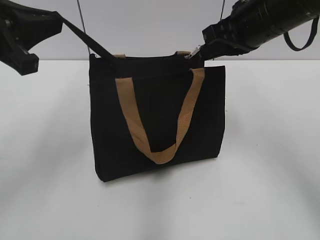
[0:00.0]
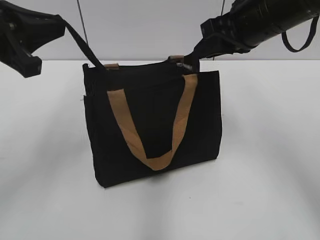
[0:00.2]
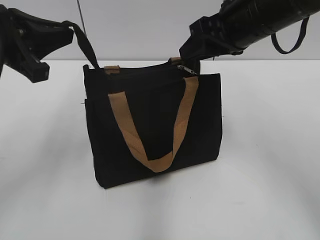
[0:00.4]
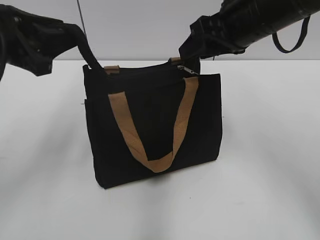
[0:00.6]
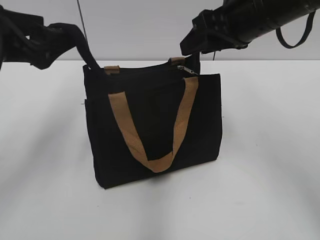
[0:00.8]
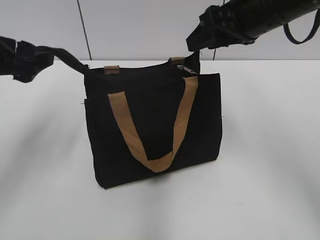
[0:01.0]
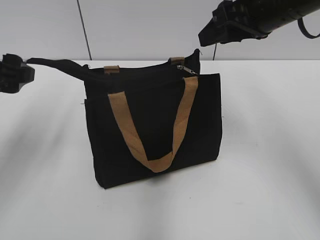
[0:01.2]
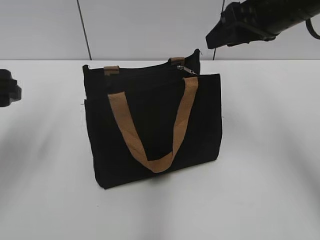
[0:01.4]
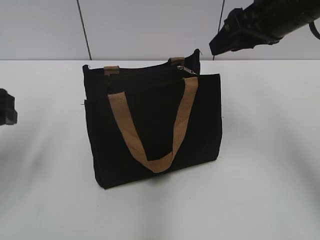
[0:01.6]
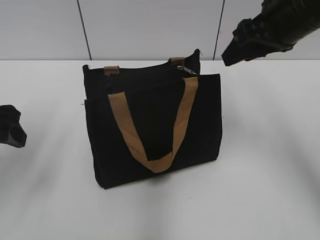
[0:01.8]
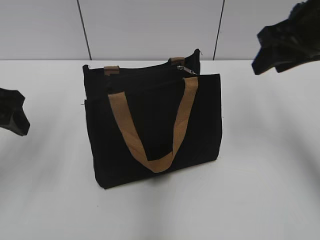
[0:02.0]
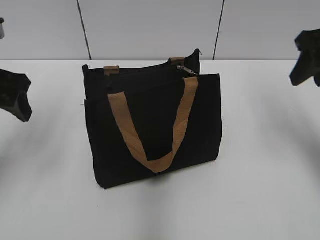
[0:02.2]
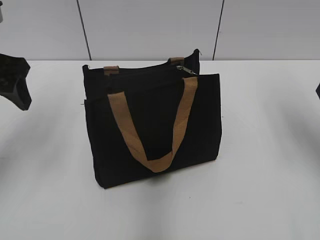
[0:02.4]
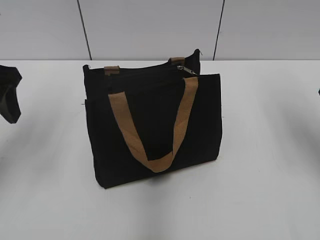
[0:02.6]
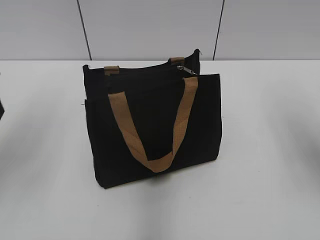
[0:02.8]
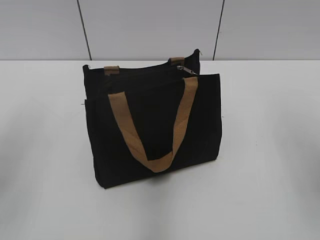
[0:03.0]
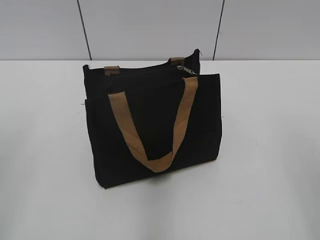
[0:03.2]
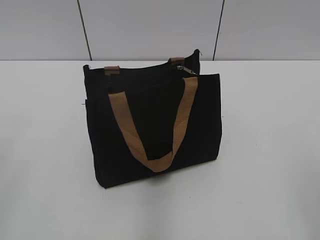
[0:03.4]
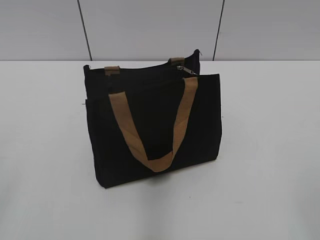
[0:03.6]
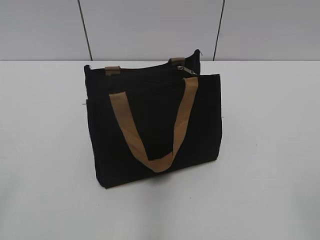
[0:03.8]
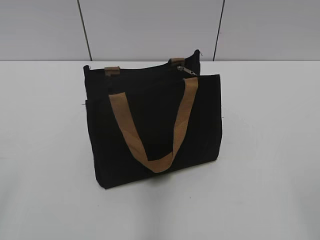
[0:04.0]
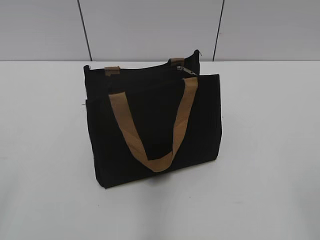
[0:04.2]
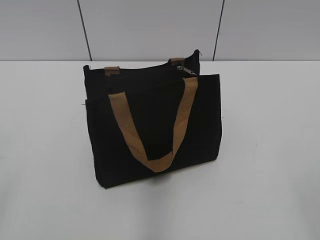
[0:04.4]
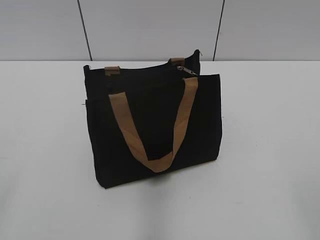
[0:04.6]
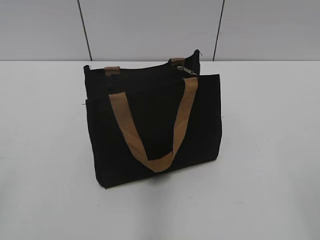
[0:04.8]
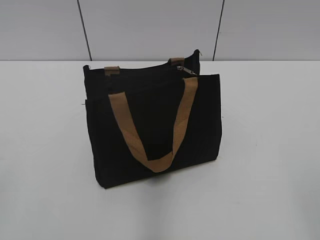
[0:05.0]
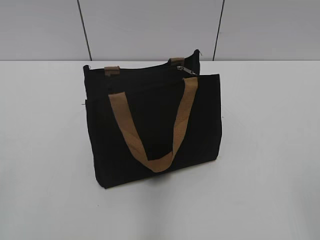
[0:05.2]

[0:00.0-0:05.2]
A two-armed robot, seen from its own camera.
Step, 0:00.4 to 0:01.2: Grab the zipper with your left hand.
0:00.0 to 0:01.8: The left gripper heads downward, covering approximately 5 cm, and opens its fingers, while the right gripper opens its fingers.
0:01.8 to 0:03.4: The left gripper shifts some 20 cm backward and upward, while the right gripper moves backward, roughly 30 cm.

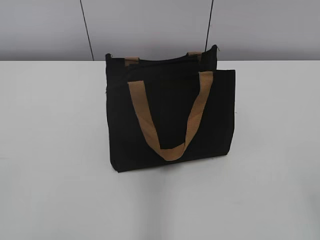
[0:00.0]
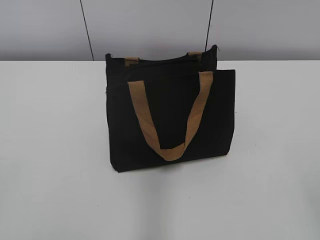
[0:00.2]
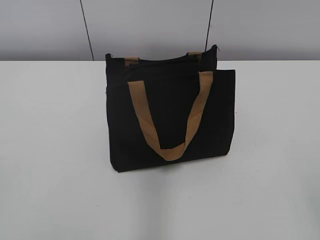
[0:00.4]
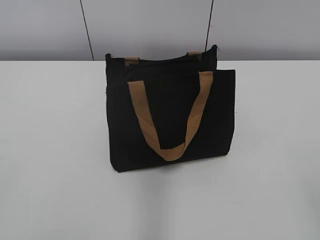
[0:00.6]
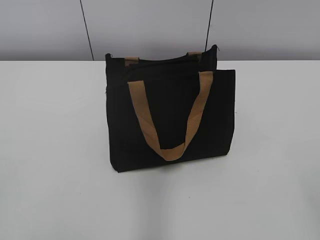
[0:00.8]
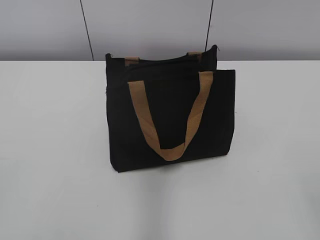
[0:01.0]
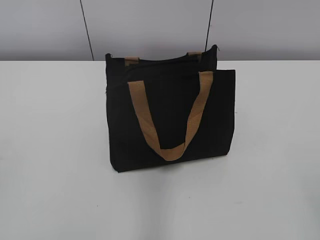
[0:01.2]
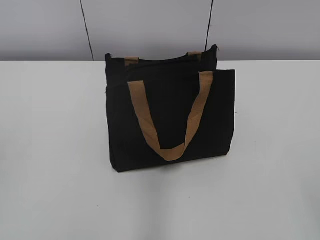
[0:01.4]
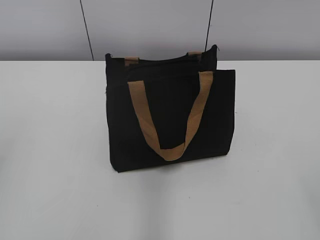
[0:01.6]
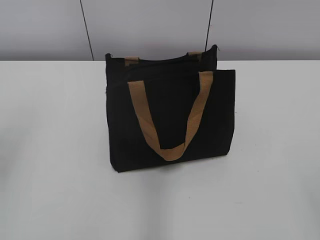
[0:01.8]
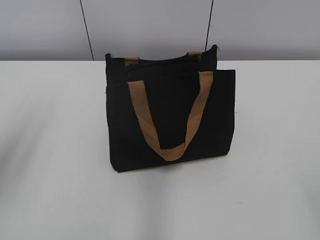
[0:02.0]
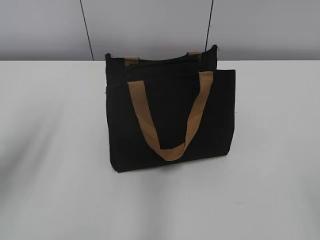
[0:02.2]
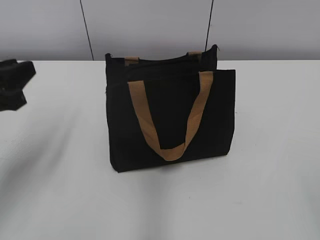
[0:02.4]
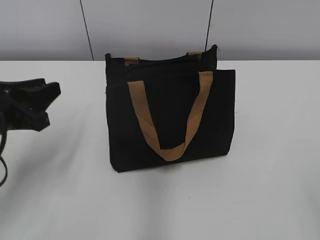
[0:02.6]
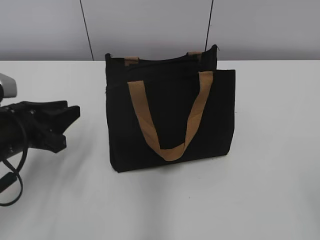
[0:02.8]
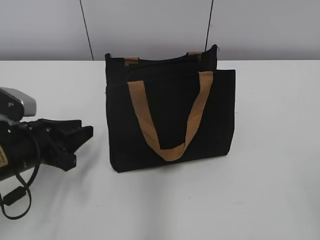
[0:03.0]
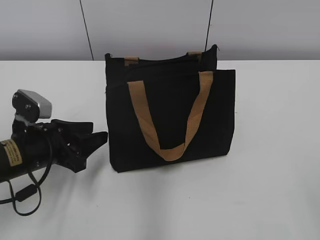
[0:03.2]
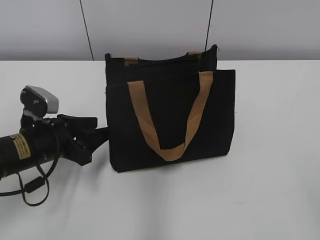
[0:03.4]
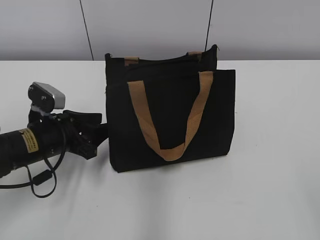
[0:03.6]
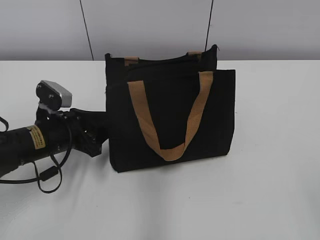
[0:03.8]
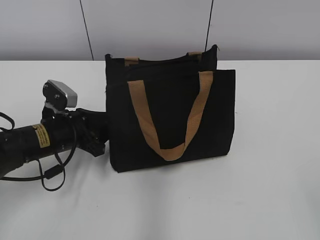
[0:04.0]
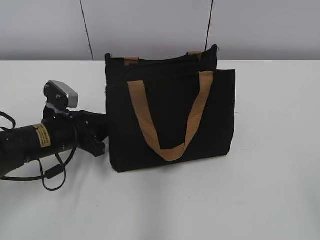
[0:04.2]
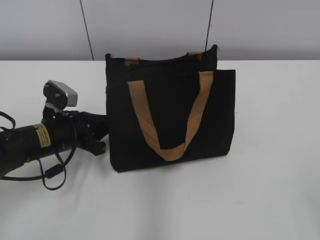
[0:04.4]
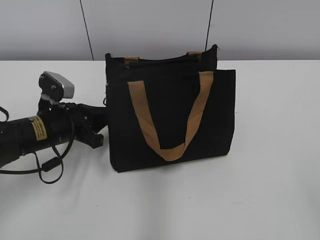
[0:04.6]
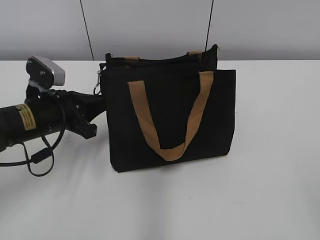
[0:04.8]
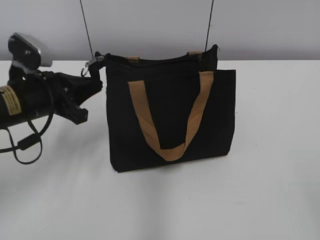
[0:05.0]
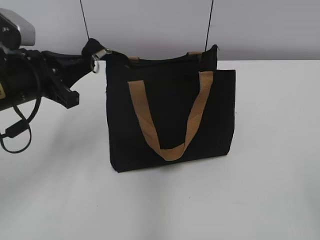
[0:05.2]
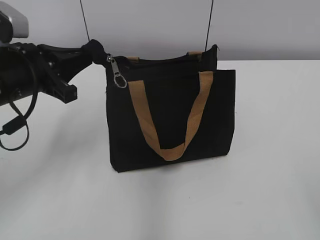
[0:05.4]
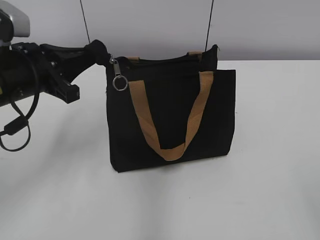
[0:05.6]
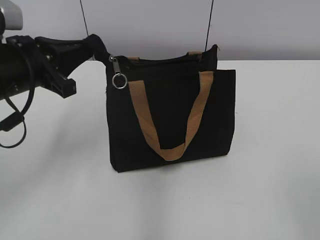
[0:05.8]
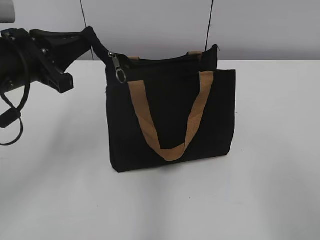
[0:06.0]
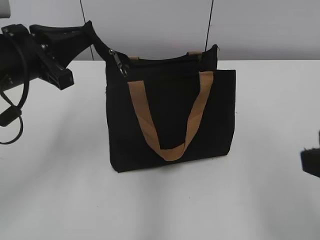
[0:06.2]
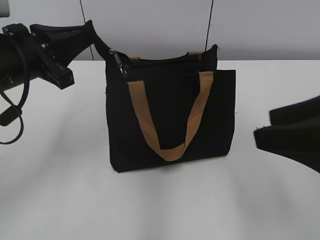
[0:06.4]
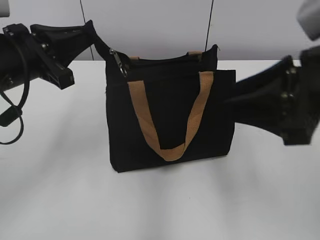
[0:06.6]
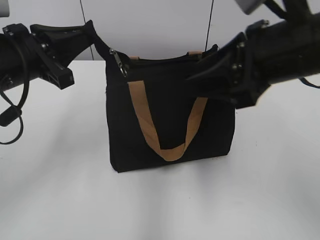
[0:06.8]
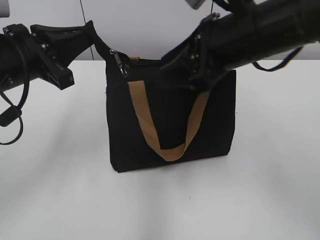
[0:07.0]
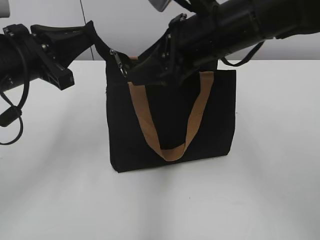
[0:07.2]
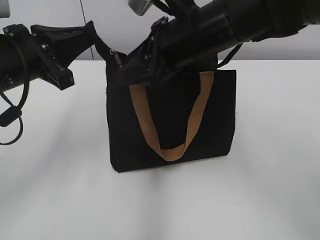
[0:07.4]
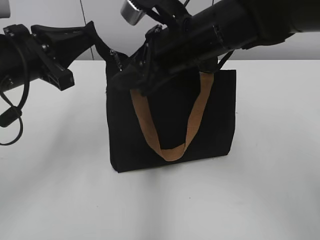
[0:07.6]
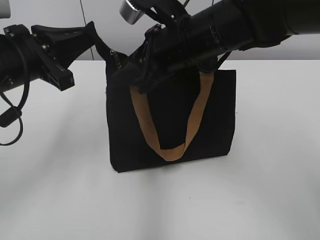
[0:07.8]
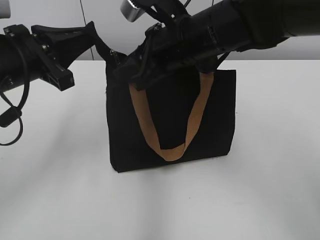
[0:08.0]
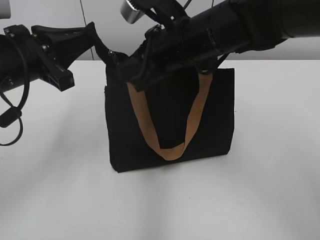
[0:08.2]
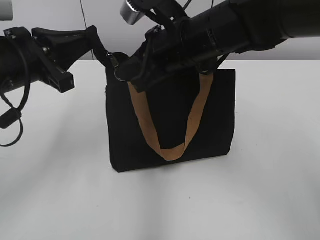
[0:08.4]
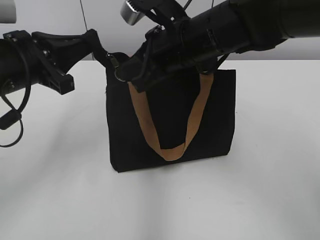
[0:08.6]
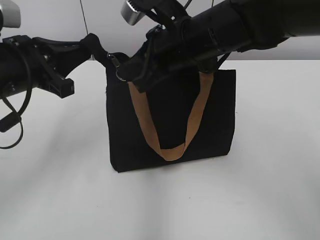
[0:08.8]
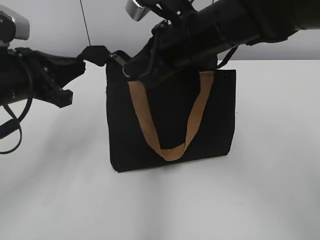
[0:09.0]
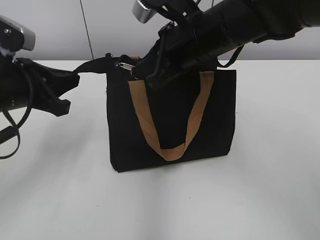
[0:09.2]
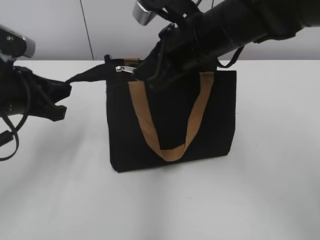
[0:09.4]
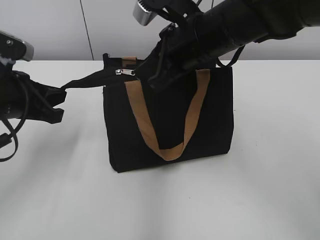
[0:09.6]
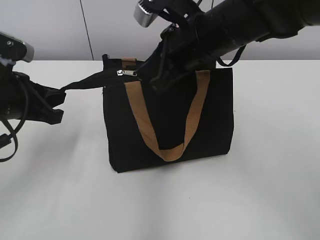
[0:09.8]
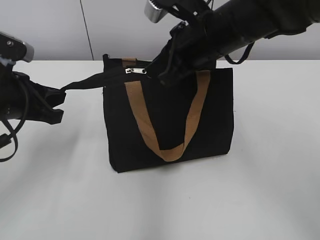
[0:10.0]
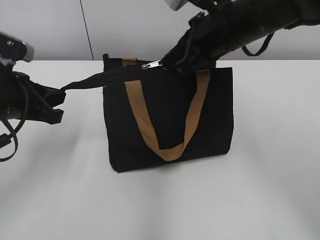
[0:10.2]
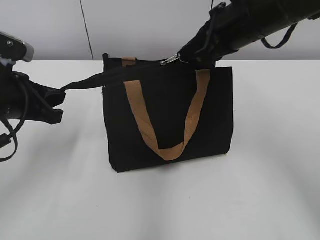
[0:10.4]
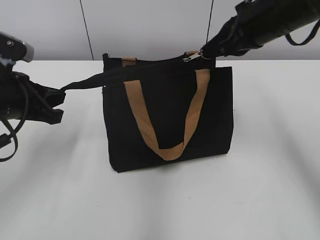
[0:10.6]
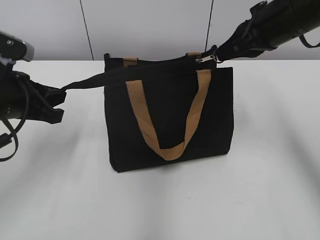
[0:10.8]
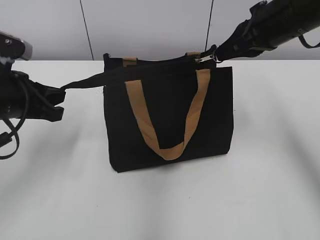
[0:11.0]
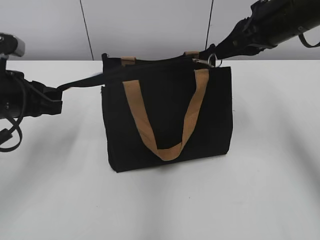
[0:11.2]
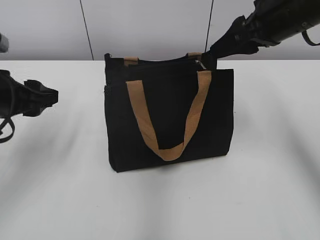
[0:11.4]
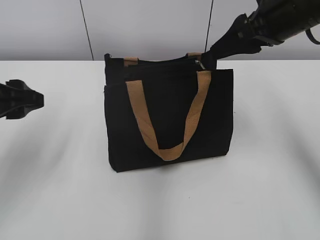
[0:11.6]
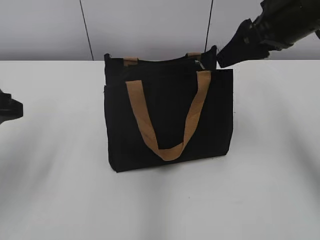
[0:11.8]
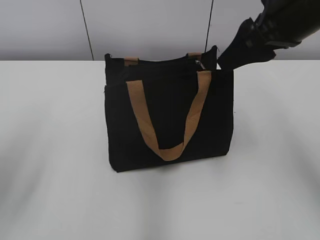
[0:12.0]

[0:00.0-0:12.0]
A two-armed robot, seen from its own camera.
Step, 0:00.0 to 0:11.2: Zip up the bag with your right hand.
0:01.6 to 0:03.0: The left gripper goes roughly 30 cm downward, forward and to the right.
0:03.0 to 0:04.4: The left gripper goes about 5 cm forward, and closes.
0:04.4 to 0:06.0: The right gripper heads forward, covering roughly 5 cm, while the left gripper heads upward, covering approximately 15 cm.
0:06.0 to 0:07.6: The right gripper is displaced forward and to the left by roughly 35 cm.
0:07.6 to 0:09.0: The right gripper closes its fingers.
0:09.0 to 0:10.4: The right gripper heads to the right, covering approximately 5 cm.
0:10.4 to 0:12.0: The right gripper changes place by some 5 cm, and opens, while the left gripper travels backward and upward by approximately 10 cm, and opens up.

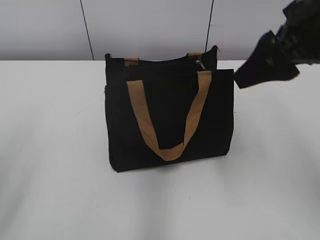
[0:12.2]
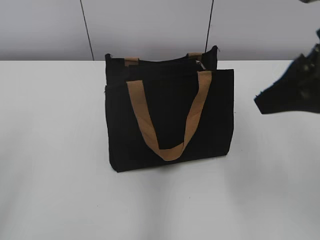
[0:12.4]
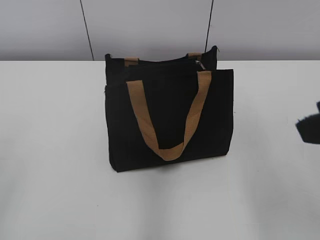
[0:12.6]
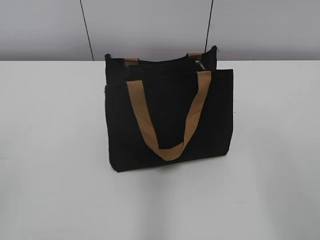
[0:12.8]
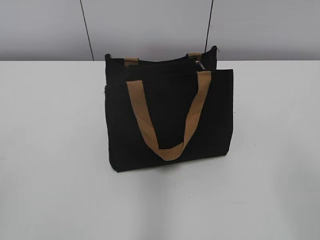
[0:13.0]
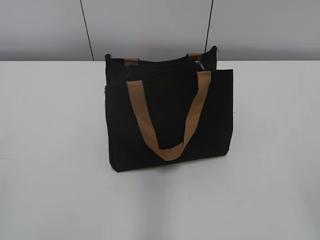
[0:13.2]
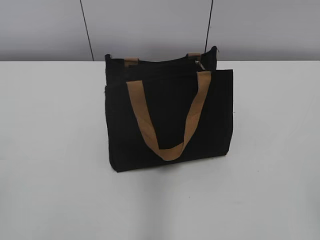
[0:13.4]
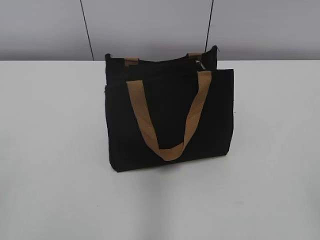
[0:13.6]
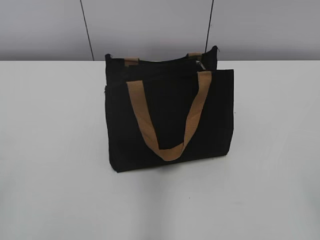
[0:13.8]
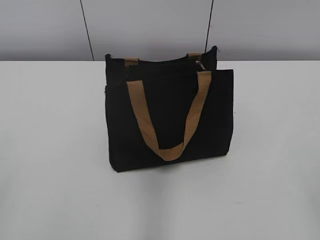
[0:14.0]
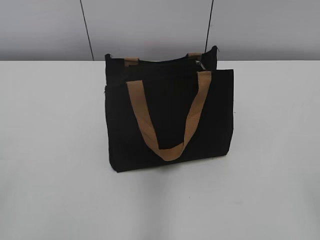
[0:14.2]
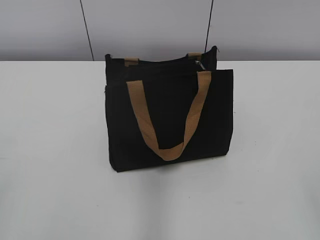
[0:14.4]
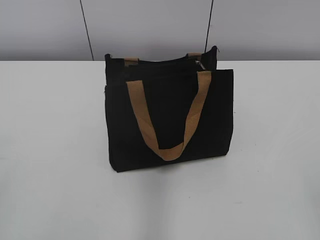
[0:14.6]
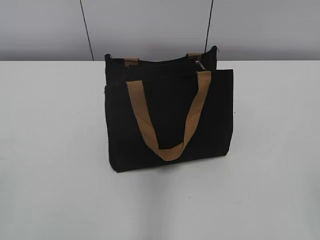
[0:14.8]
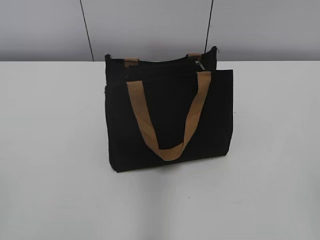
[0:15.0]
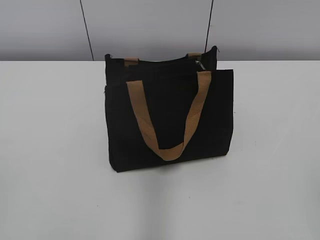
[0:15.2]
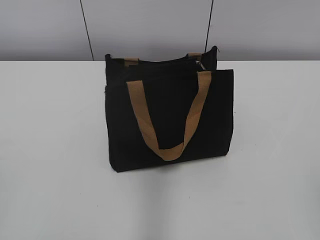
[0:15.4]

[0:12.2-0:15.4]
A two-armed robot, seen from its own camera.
0:12.2 to 0:13.8: The right gripper shifts some 25 cm backward.

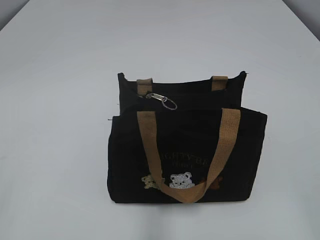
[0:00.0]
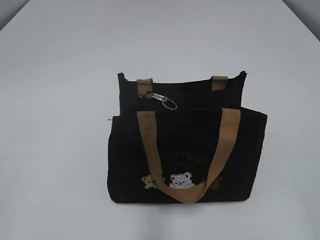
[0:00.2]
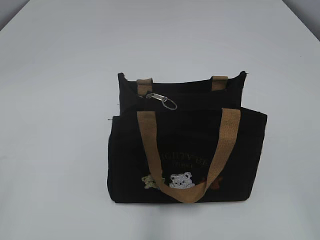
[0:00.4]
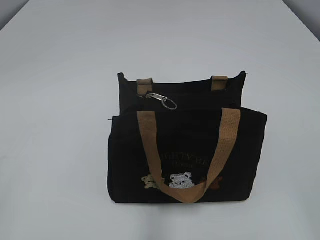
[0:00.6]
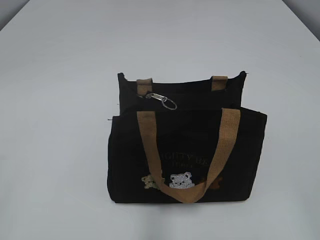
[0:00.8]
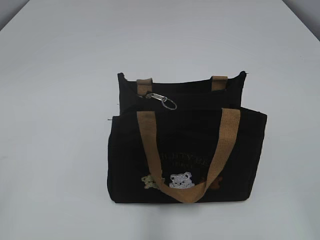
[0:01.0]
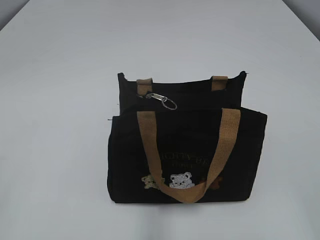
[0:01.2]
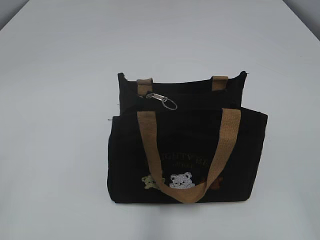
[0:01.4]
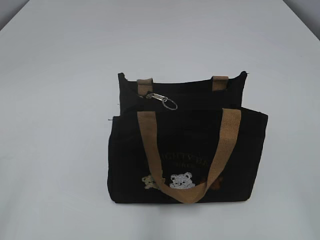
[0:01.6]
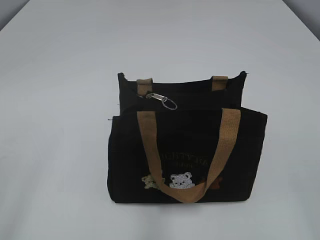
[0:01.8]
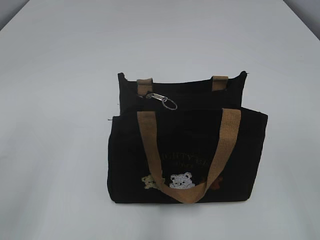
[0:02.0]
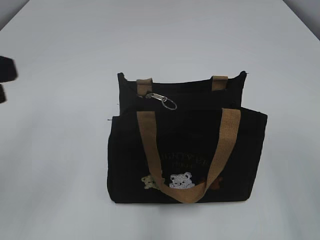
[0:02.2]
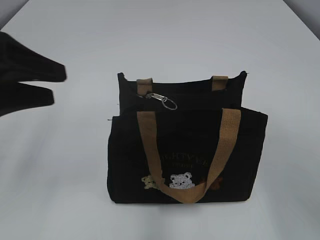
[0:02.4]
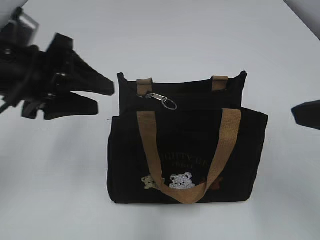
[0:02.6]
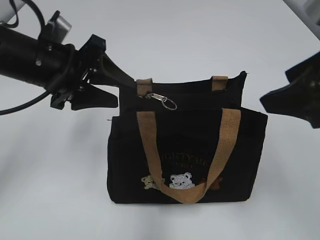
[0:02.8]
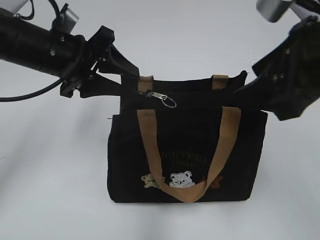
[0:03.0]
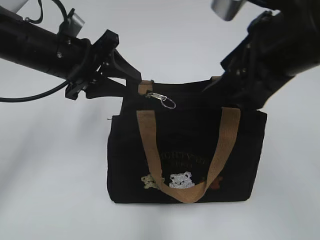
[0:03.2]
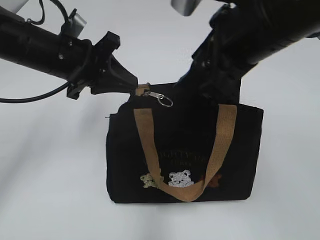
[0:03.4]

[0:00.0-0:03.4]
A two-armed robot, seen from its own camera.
0:01.6 to 0:03.4: The left gripper travels forward and to the right by roughly 35 cm. Meanwhile the right gripper is displaced forward and to the left by about 30 cm.
